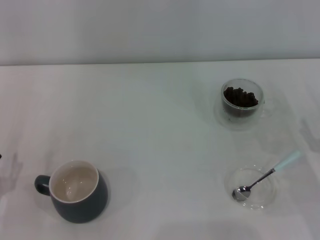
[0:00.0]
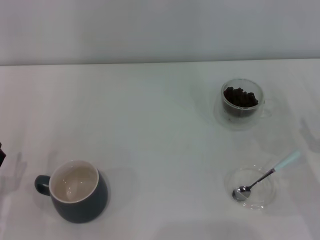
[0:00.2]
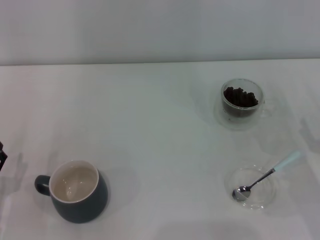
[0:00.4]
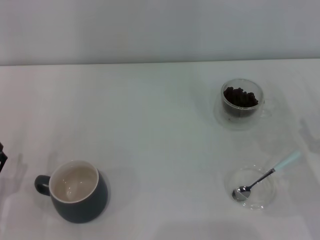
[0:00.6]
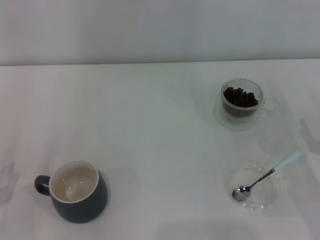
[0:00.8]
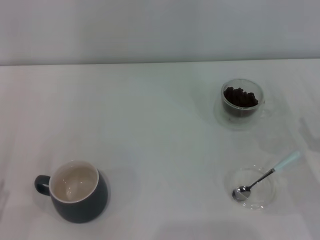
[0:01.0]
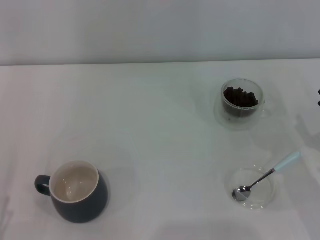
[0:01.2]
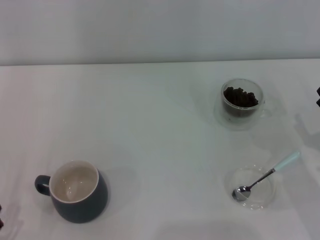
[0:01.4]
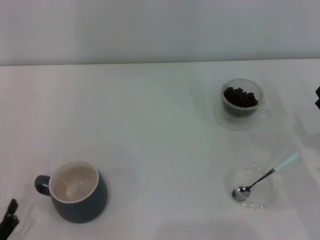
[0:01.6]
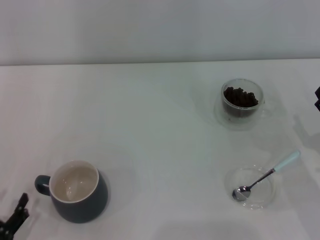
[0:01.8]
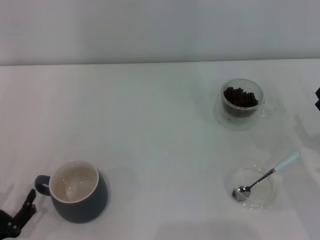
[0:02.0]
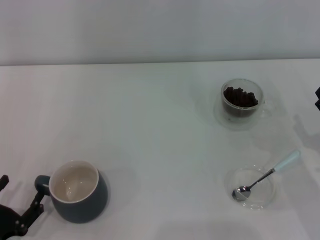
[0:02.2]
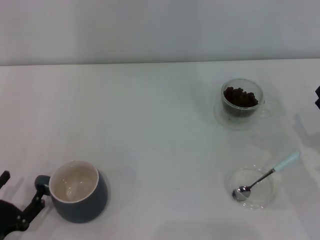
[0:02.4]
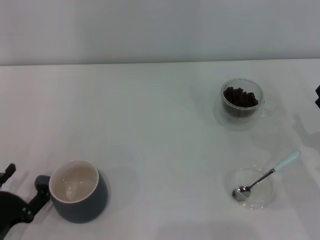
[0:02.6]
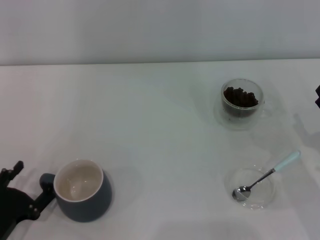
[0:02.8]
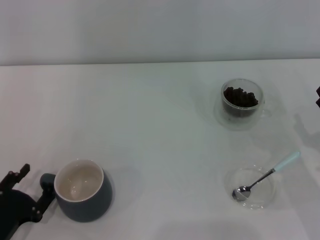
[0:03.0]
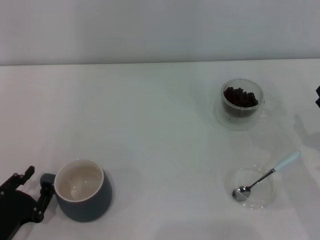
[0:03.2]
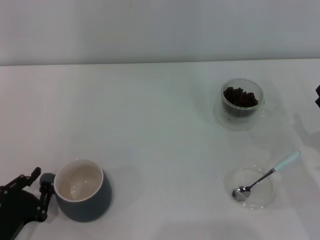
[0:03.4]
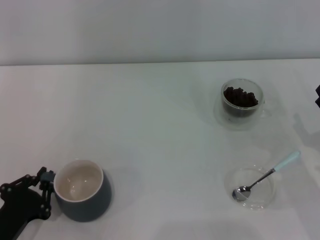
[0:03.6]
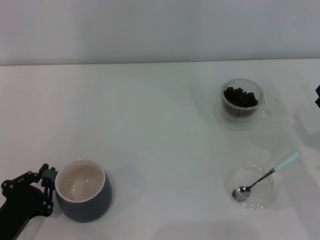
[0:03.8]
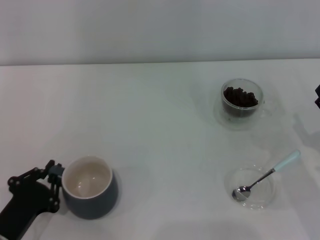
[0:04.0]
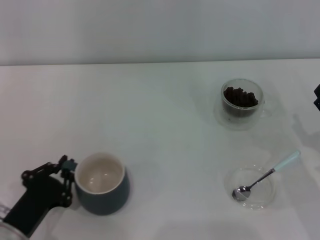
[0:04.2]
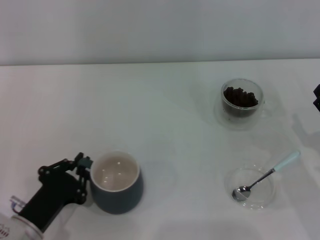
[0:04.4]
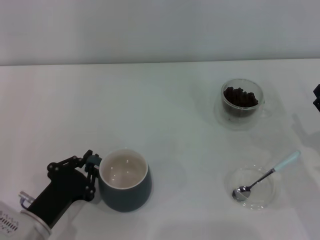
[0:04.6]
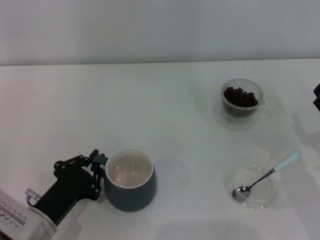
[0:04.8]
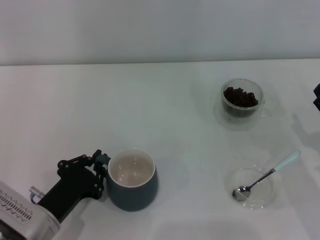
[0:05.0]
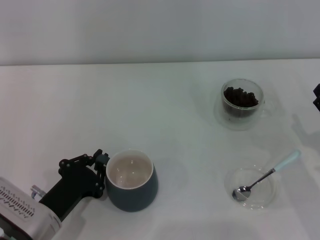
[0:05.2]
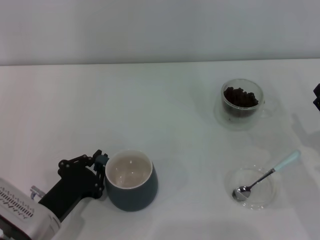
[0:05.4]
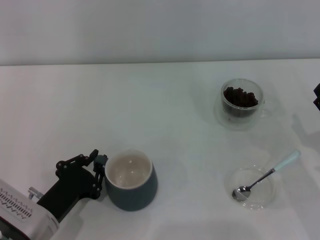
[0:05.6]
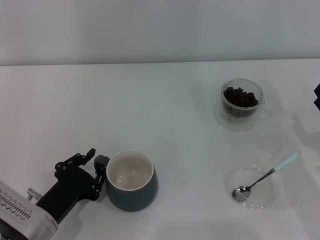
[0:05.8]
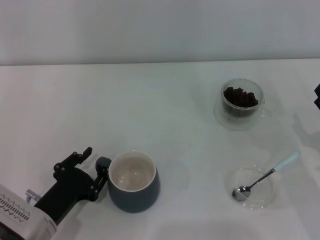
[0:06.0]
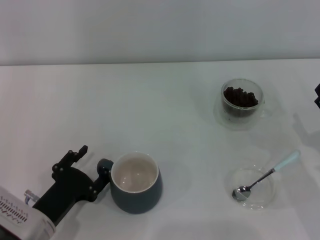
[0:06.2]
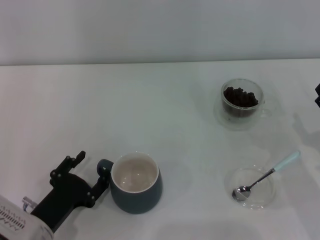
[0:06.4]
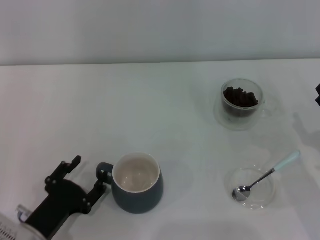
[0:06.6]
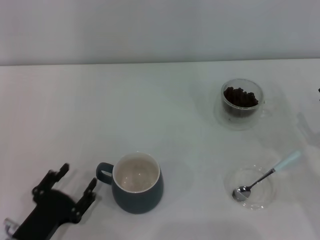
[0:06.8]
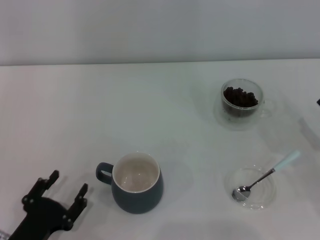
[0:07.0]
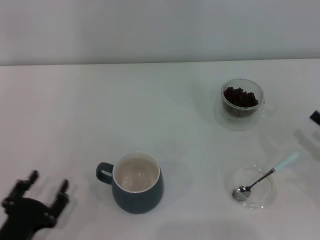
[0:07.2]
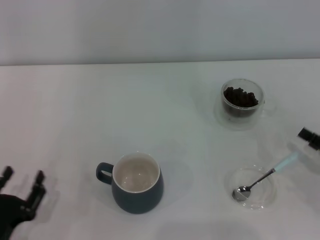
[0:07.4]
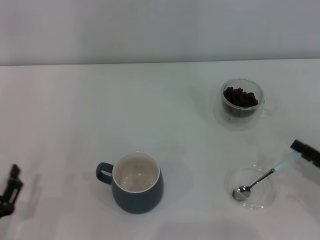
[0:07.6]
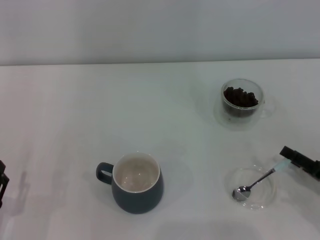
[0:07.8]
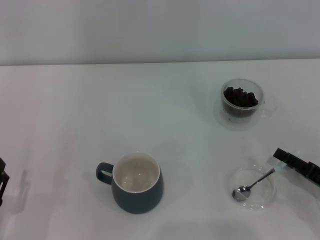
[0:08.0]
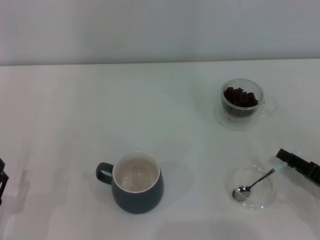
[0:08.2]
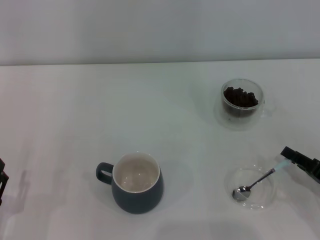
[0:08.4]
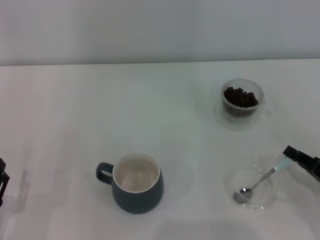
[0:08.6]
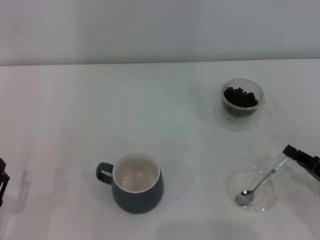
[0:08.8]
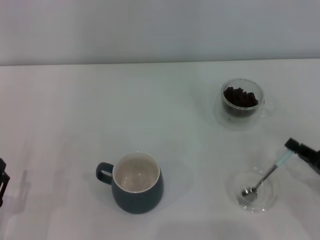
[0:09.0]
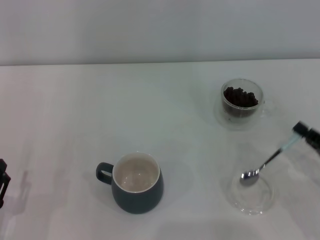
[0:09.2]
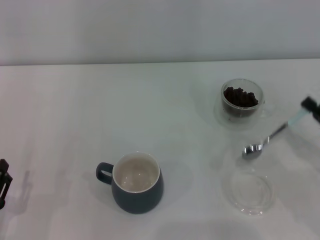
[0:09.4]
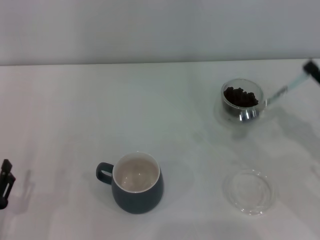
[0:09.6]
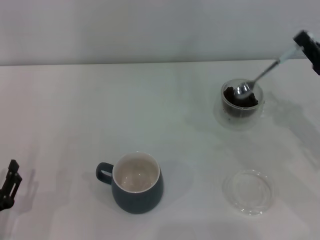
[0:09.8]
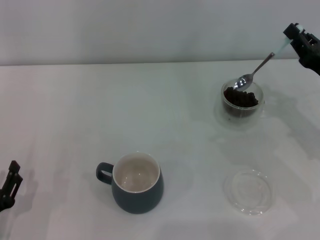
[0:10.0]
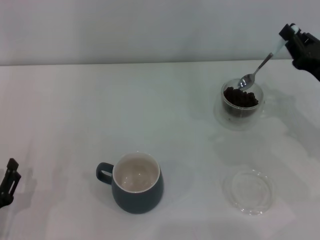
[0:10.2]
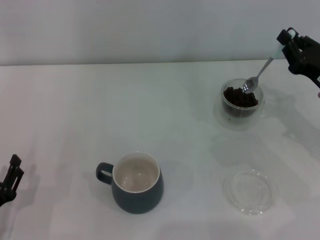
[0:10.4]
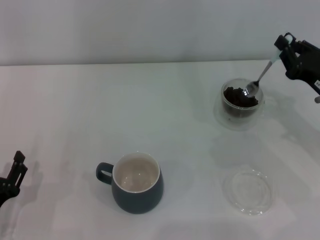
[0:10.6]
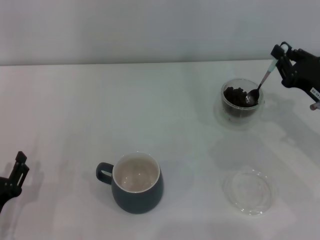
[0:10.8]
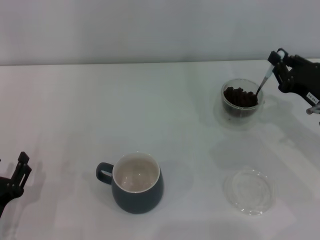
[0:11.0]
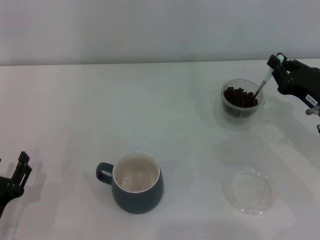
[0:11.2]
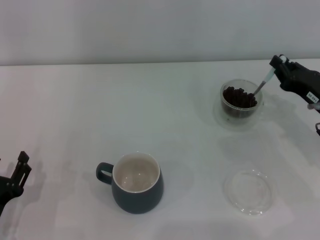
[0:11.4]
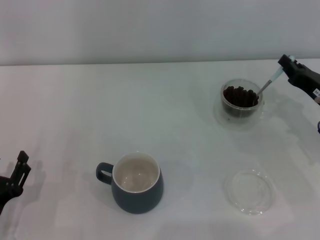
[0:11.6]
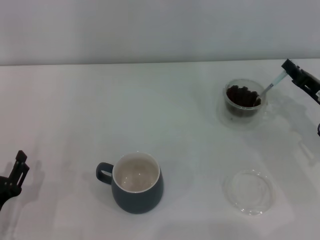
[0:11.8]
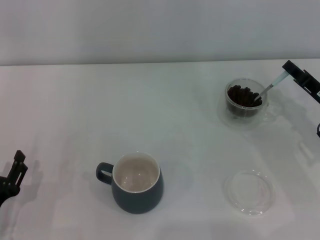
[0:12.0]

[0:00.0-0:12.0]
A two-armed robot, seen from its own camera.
Task of the whole recording: Use a blue spoon to take out the coffee beans from the glass and pour them into the gray cup.
Step, 0:00.0 to 0:07.0: Move the cup to the center of view with the left gripper.
Step, 0:07.2 to 0:09.2: Pick up the spoon with the right gripper.
0:00.0 to 0:01.6: The left gripper moves backward, about 10 cm.
0:01.6 to 0:03.0: The left gripper travels forward by approximately 5 cm.
0:03.0 to 0:04.4: The left gripper moves to the right, roughly 5 cm, and closes up.
0:04.4 to 0:06.0: The grippers move only a little.
0:06.0 to 0:07.6: The left gripper is displaced to the left and backward by about 10 cm, and opens.
0:07.6 to 0:09.0: The right gripper closes up.
0:09.0 to 0:10.4: The right gripper travels forward and upward by about 15 cm.

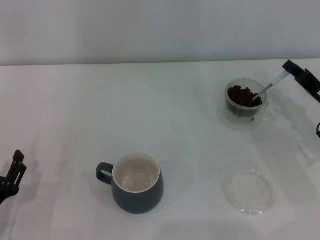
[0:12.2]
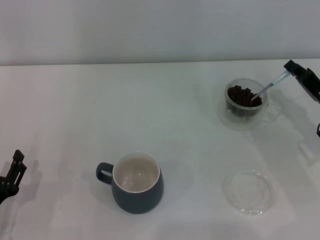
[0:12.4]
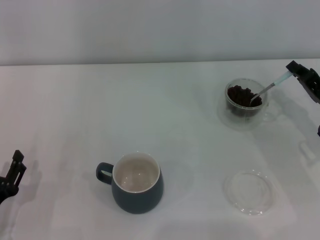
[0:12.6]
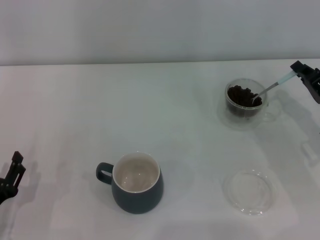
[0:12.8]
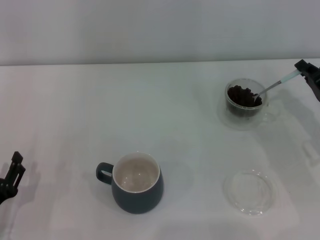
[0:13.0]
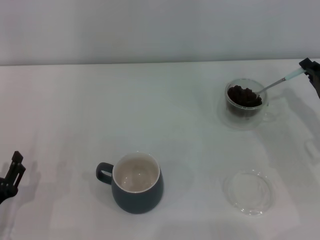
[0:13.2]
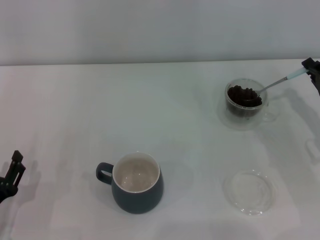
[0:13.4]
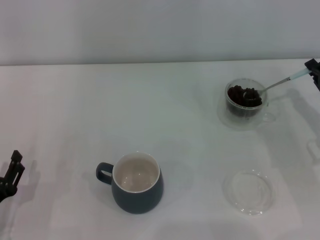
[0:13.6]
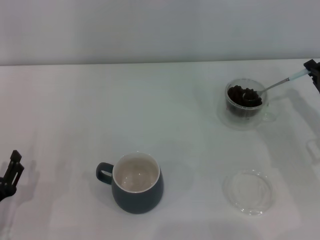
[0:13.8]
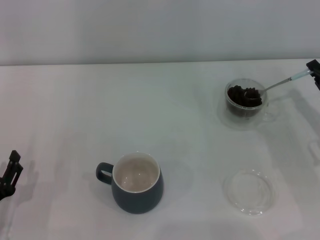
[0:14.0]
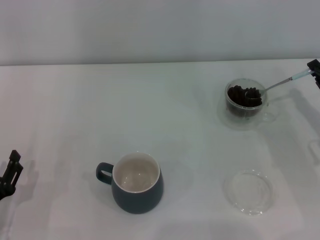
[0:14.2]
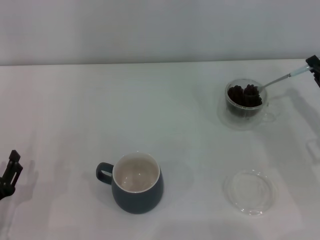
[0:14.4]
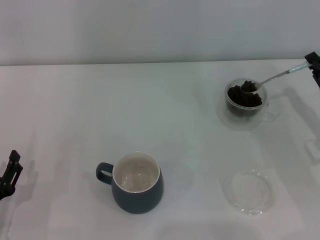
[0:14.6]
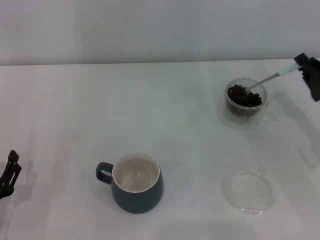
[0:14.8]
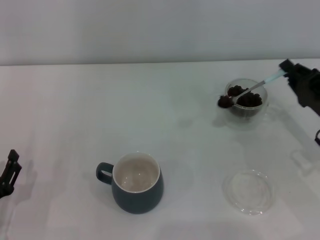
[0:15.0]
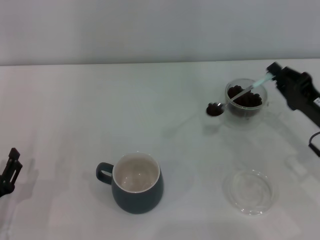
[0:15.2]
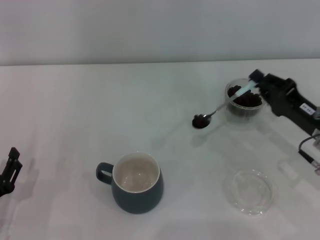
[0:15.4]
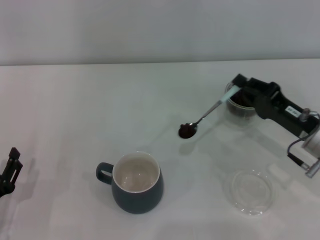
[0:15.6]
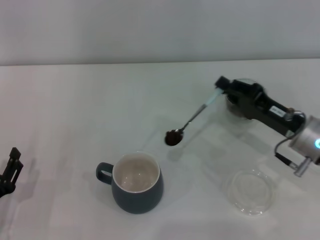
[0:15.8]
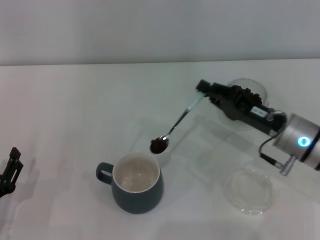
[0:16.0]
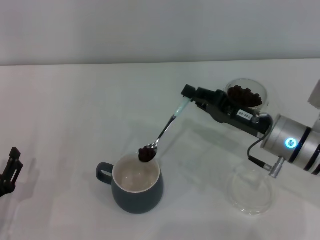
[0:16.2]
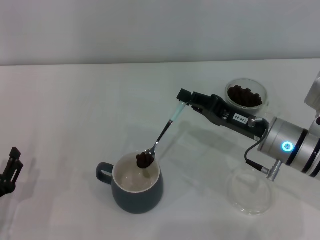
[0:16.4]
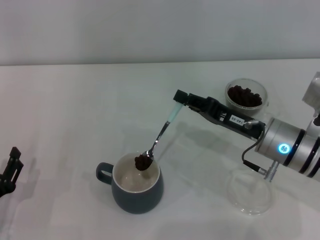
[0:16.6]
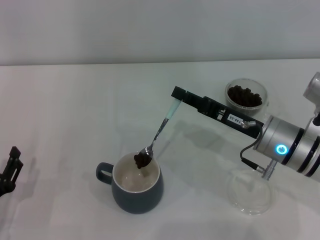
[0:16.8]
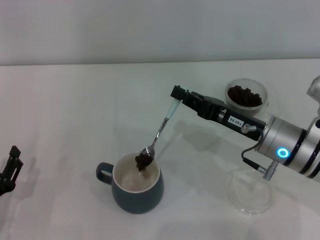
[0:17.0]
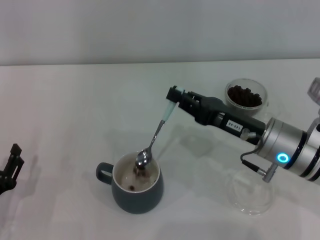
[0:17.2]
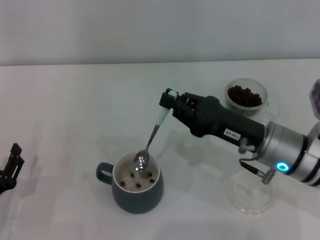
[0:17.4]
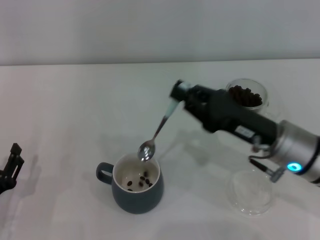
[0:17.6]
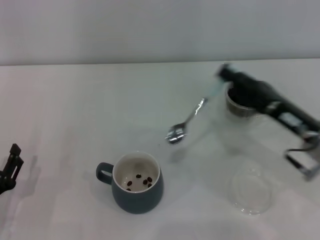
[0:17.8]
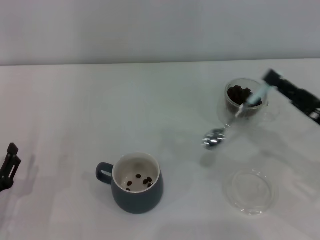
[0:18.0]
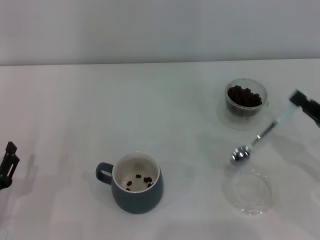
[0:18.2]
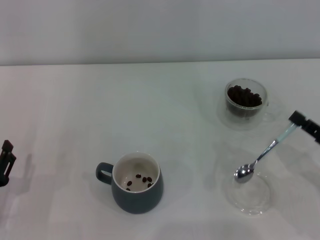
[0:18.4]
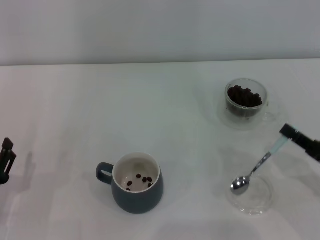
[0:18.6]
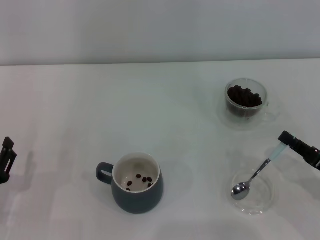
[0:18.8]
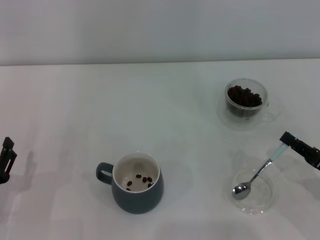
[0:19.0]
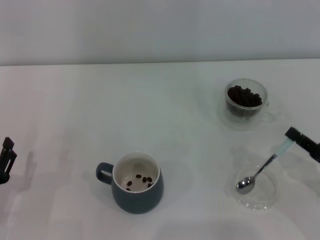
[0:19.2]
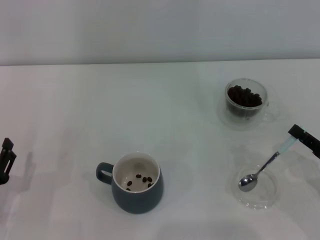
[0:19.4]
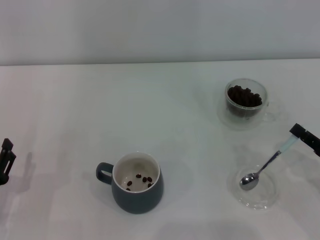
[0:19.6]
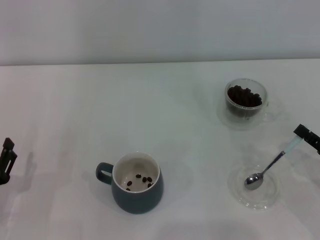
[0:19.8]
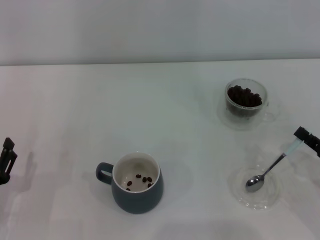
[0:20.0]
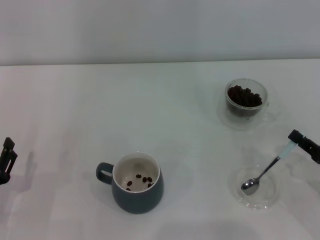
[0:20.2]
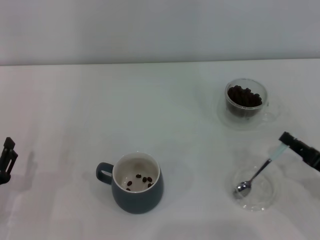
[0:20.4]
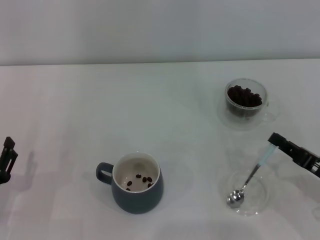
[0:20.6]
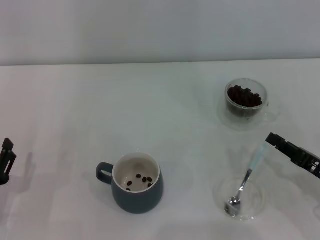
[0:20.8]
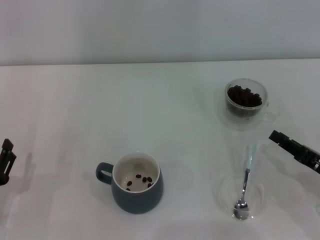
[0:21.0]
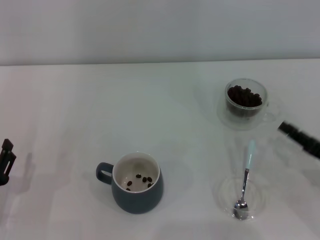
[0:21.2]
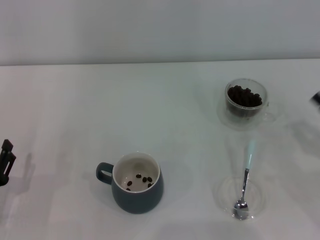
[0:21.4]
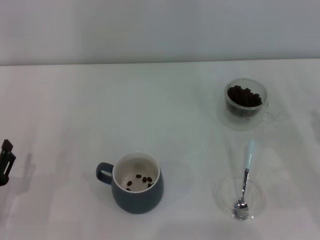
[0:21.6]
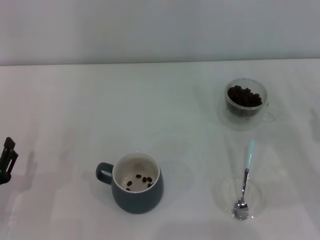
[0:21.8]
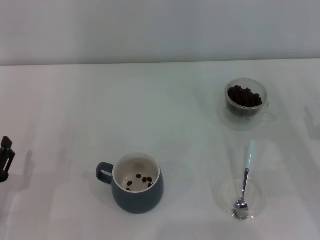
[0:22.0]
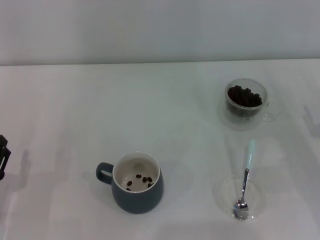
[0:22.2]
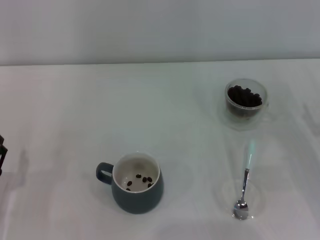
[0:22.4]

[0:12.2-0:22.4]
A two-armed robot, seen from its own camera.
Task of the whole recording: Use a blue spoon to take out the coffee beans from the glass and pour them into the gray cup.
Step, 0:12.2 to 0:17.6: Scoop a spoonful of beans into the cup with the right gripper.
Step, 0:17.8 to 0:20.8: Place the spoon back in its original place with the right gripper.
0:12.2 to 0:13.6: The grippers stay close to where they were, moving slightly.
0:15.2 to 0:16.6: The right gripper goes approximately 10 cm to the left.
0:16.6 to 0:18.0: The right gripper shifts approximately 10 cm to the right and backward.
0:18.0 to 0:19.4: The right gripper heads downward, covering some 5 cm.
0:19.4 to 0:21.0: The grippers make only small movements.
0:21.0 to 0:22.4: The right gripper moves roughly 5 cm, and opens up.
